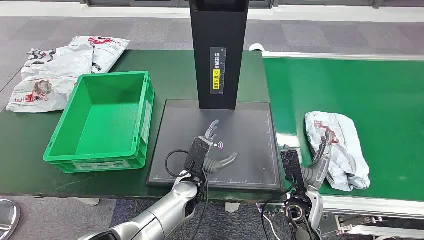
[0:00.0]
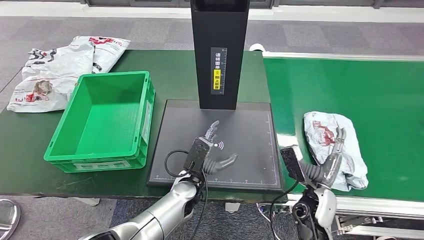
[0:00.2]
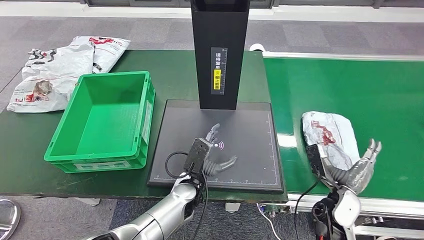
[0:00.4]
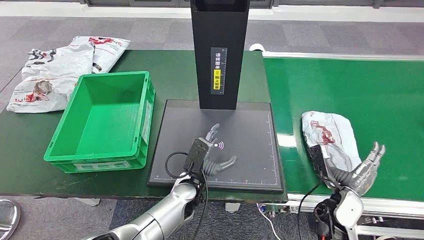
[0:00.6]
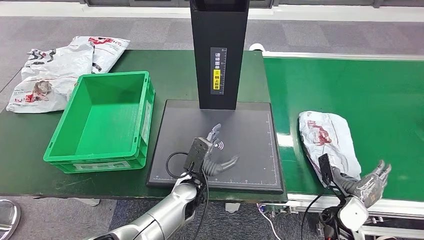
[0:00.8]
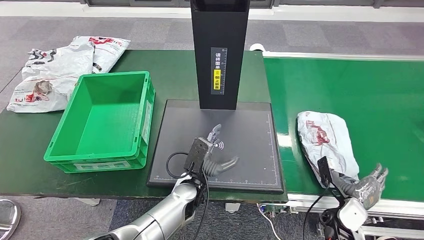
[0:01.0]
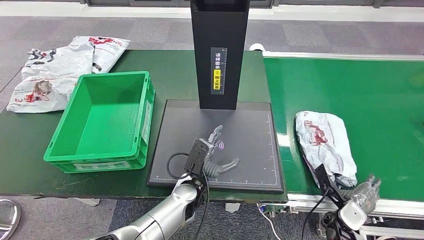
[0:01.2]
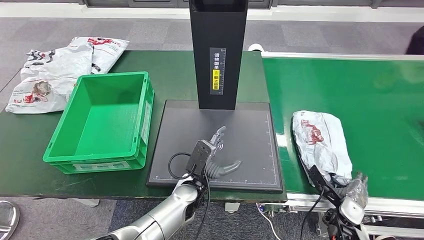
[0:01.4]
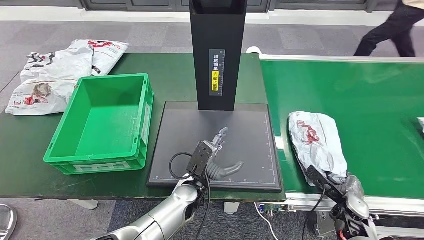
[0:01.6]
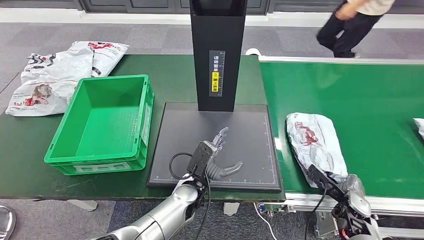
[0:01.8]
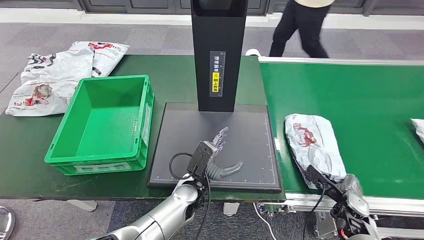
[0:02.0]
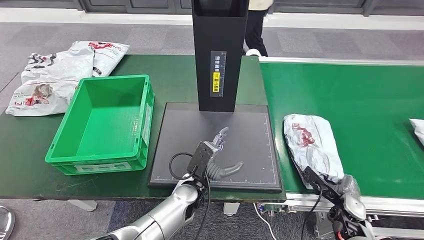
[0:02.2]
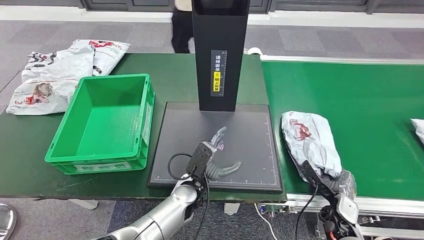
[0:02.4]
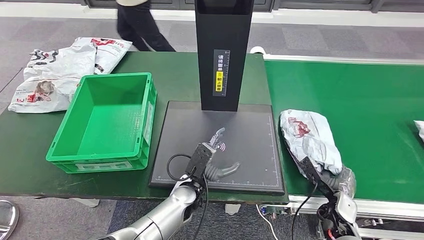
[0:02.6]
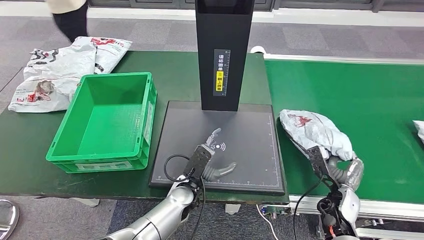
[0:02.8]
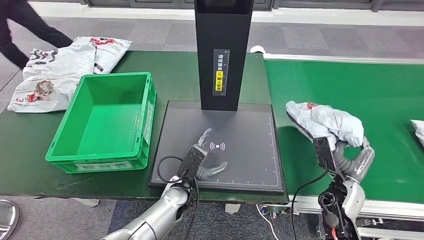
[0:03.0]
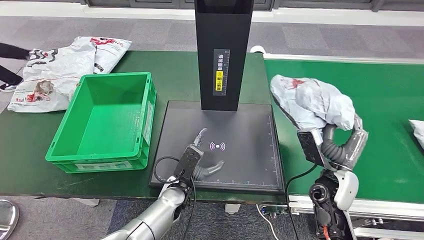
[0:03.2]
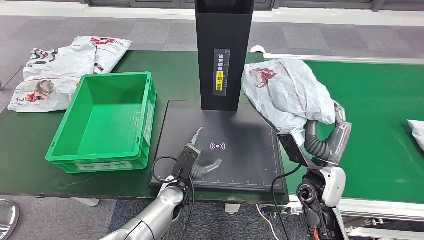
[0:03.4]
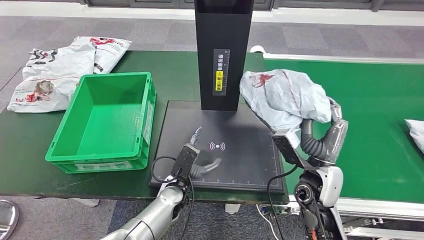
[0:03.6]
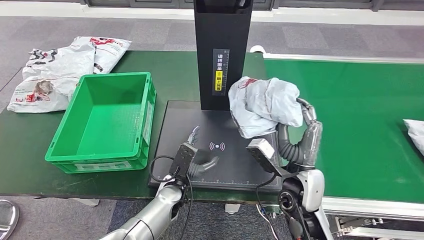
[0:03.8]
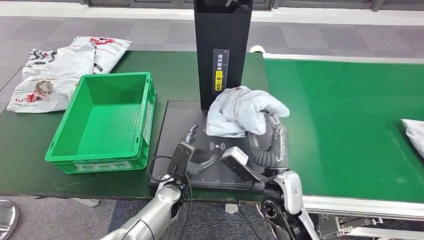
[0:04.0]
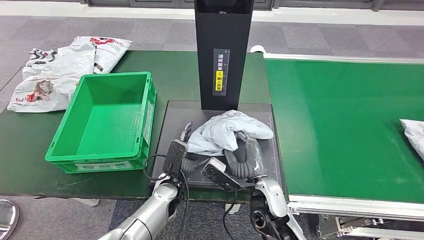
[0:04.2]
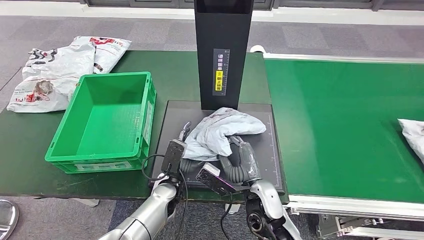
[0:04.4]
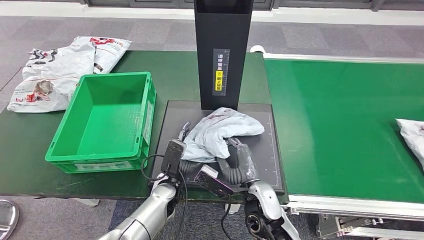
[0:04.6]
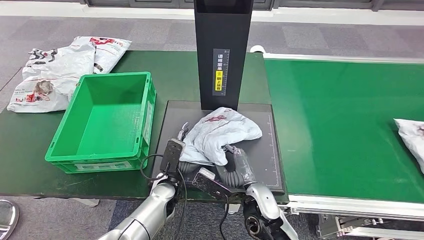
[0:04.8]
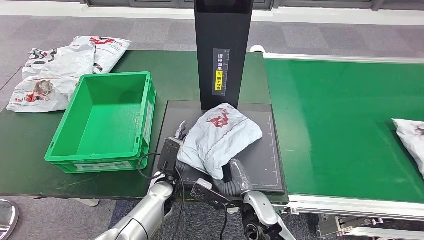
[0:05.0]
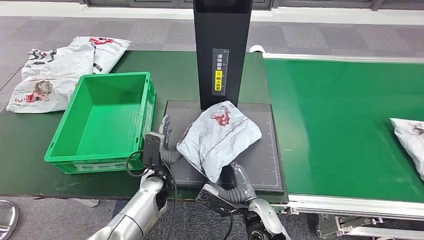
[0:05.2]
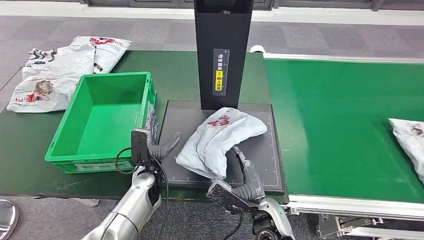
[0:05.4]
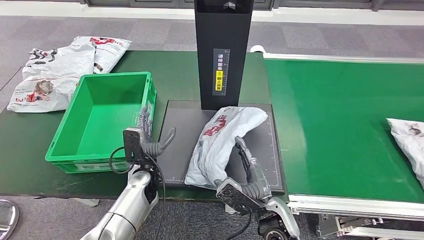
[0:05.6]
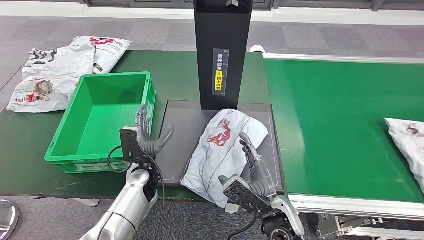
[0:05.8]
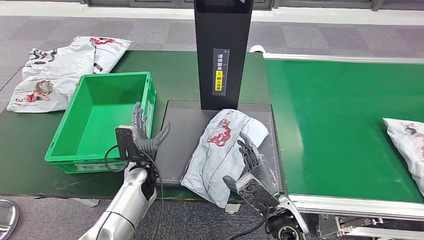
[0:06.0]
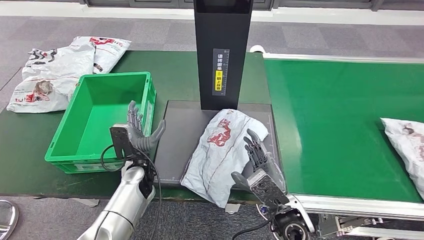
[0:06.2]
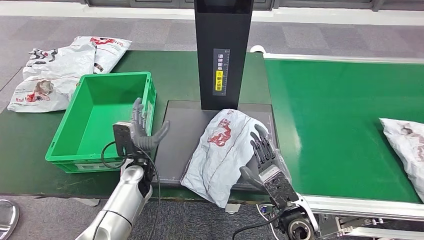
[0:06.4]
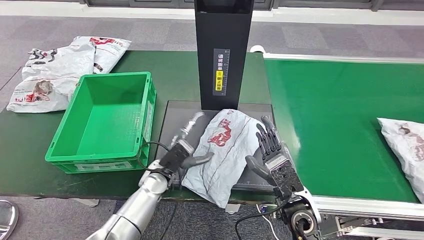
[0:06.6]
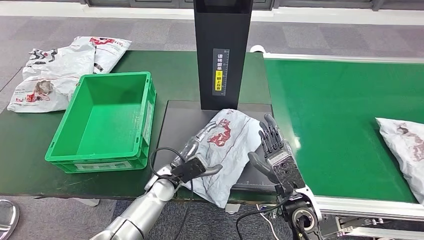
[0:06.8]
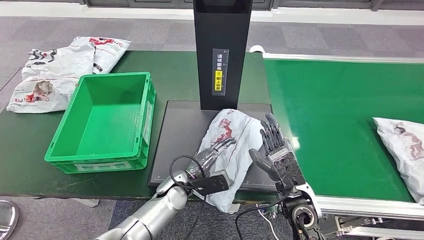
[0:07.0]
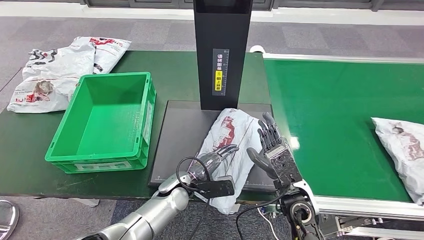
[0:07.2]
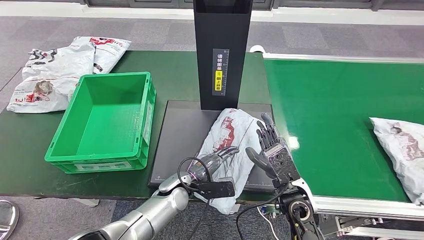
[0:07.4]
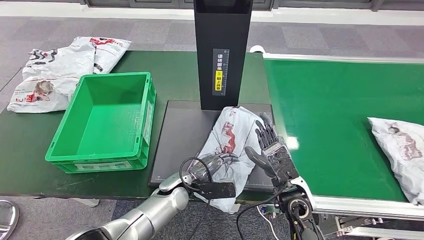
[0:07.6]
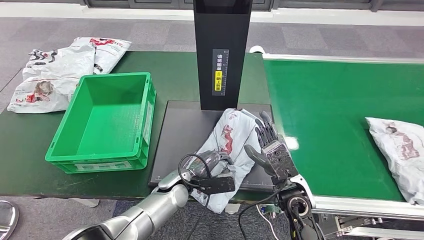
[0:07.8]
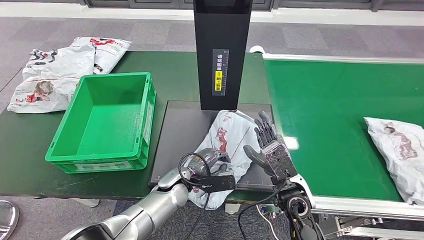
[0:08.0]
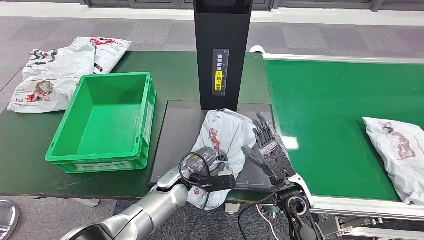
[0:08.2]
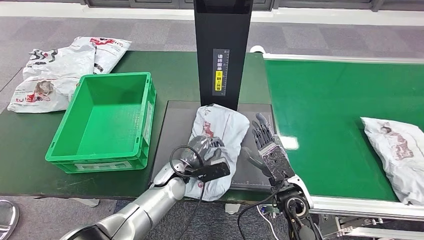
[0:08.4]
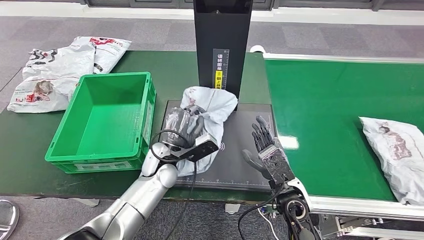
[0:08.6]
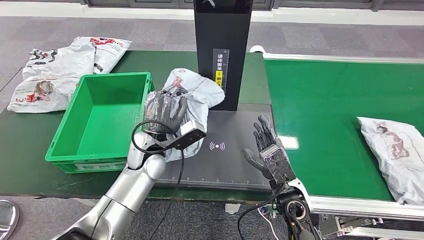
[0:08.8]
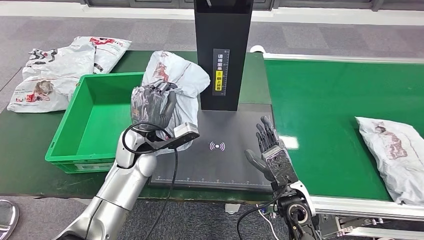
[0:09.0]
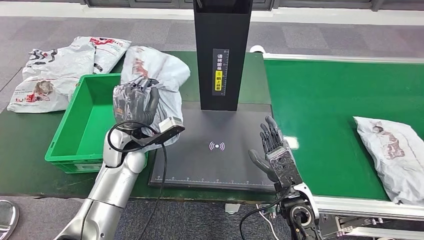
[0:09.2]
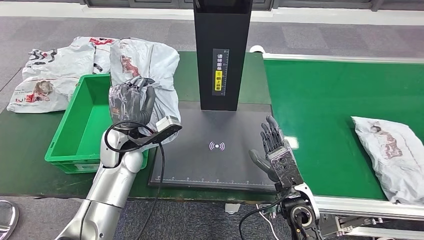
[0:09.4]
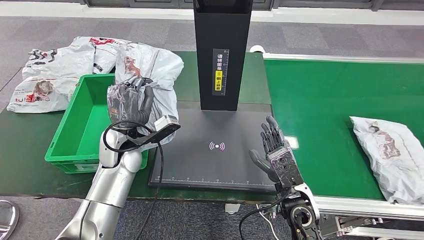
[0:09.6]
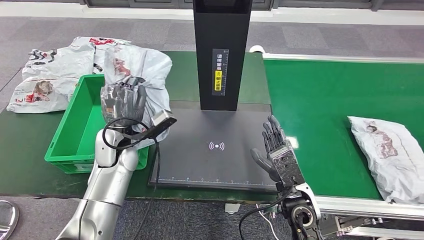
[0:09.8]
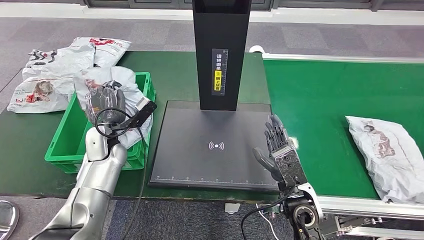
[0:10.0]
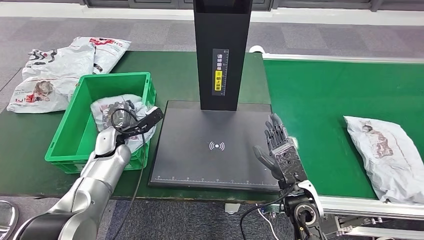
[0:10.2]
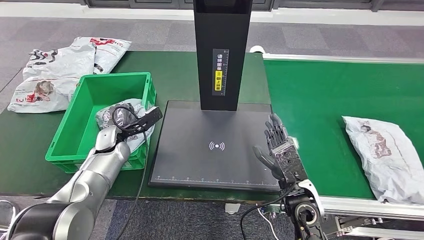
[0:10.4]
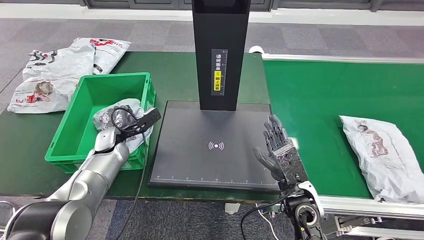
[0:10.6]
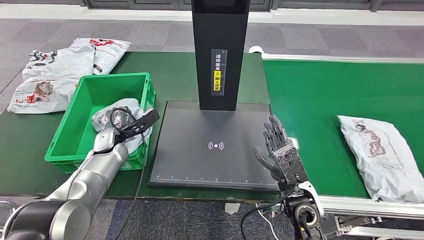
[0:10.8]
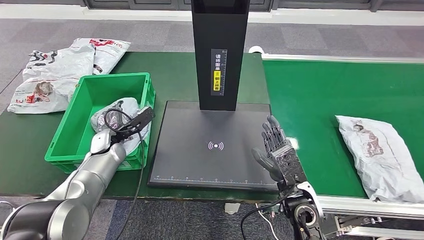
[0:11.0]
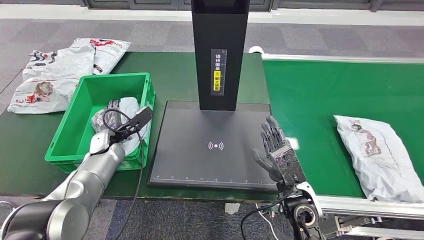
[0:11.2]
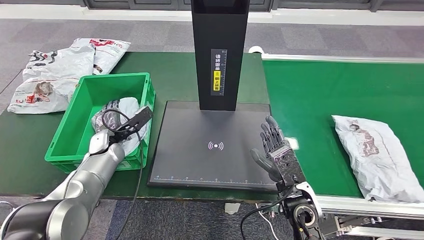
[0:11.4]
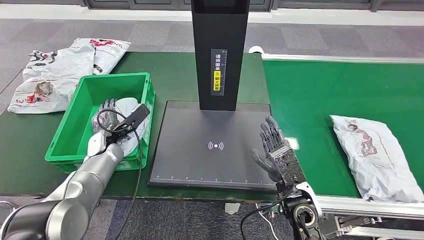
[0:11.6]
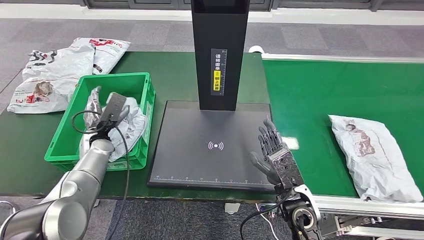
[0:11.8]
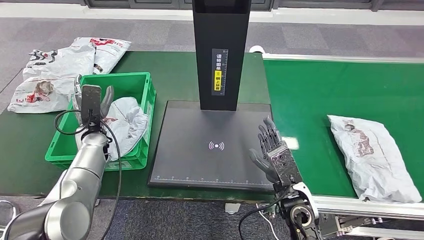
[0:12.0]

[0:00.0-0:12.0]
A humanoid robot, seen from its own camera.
Step, 0:00.0 to 0:02.8: Take the parcel off the conveyor belt.
Step, 0:03.0 to 0:06.0: Place the parcel onto the inbound machine.
Step, 0:06.2 to 0:08.8: Pick up the parcel from the inbound machine.
0:04.4 to 0:06.0: The left hand is displaced to the left by about 5 cm. Meanwhile the right hand ends up about 5 cm from where it was.
0:06.0 to 0:07.6: The right hand shifts by some 5 cm. Meanwhile the left hand goes approximately 10 cm to the right.

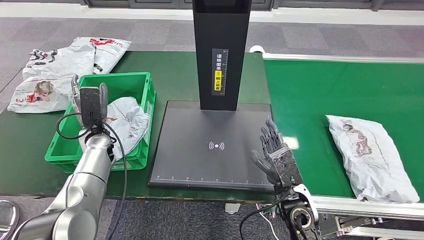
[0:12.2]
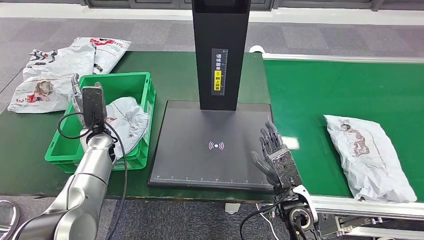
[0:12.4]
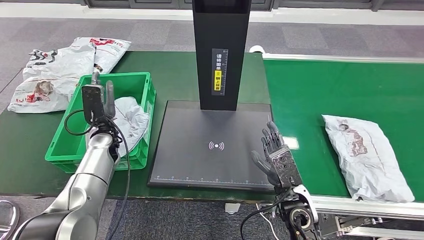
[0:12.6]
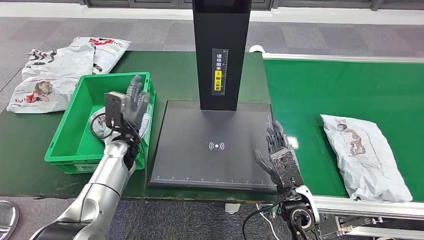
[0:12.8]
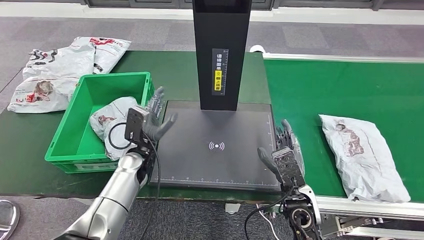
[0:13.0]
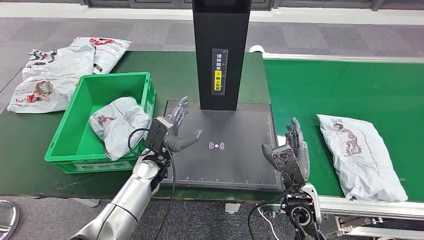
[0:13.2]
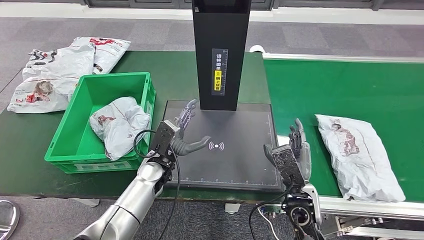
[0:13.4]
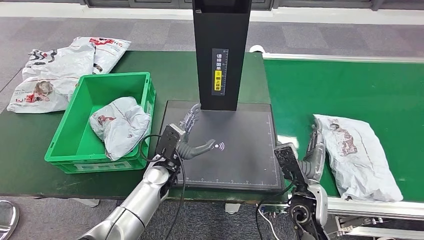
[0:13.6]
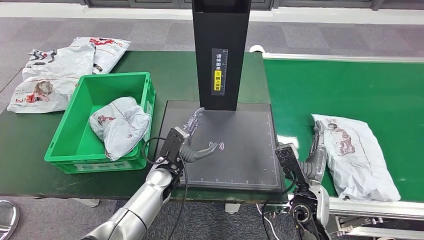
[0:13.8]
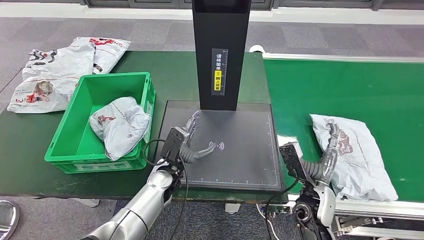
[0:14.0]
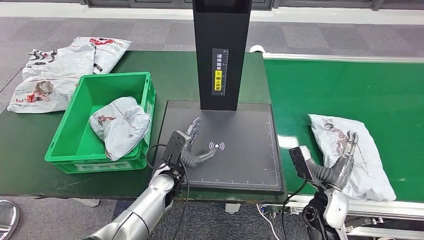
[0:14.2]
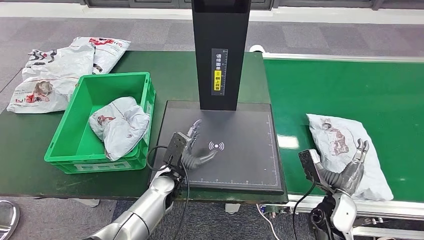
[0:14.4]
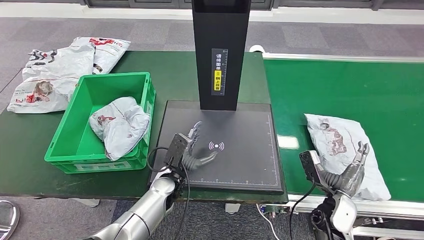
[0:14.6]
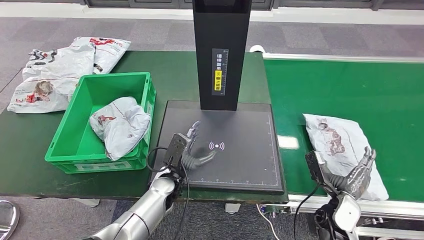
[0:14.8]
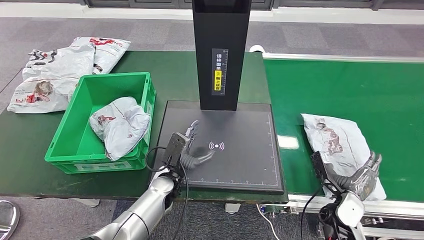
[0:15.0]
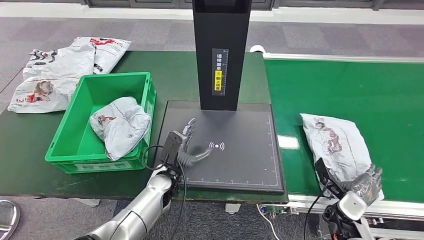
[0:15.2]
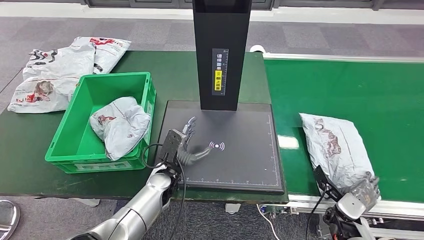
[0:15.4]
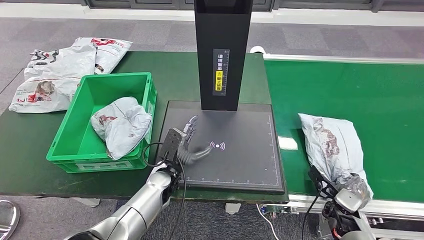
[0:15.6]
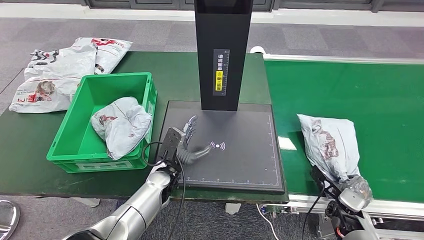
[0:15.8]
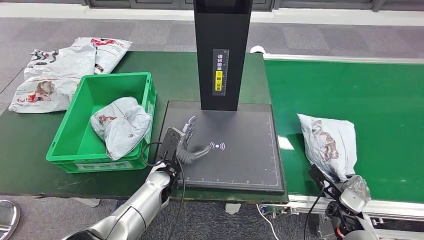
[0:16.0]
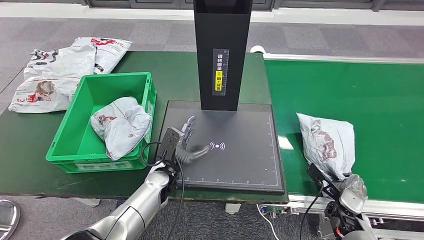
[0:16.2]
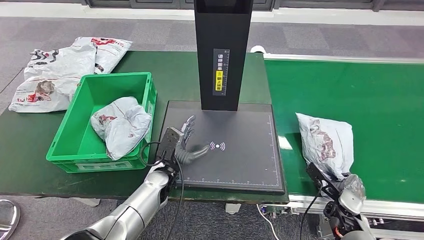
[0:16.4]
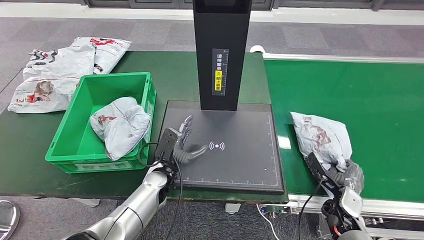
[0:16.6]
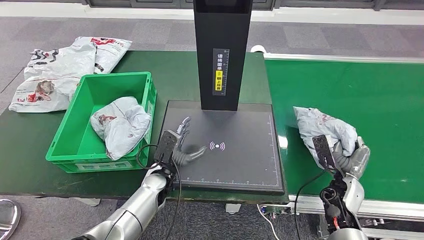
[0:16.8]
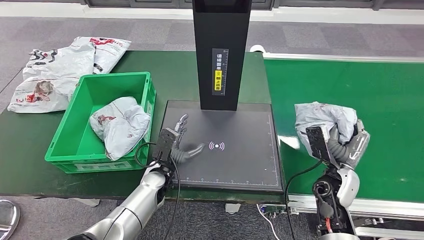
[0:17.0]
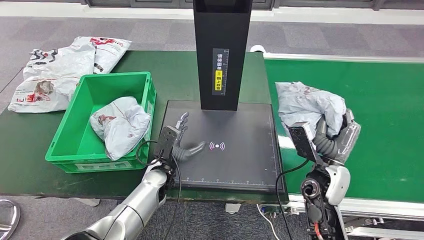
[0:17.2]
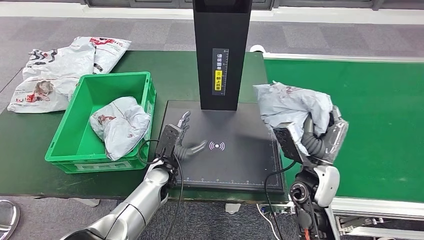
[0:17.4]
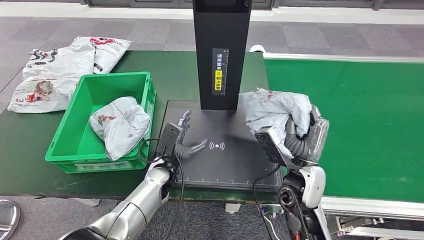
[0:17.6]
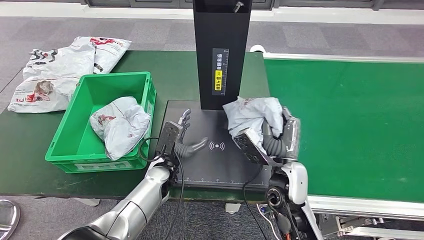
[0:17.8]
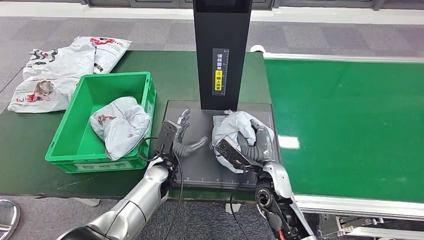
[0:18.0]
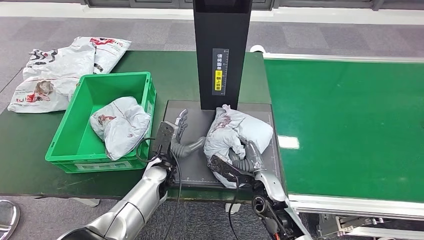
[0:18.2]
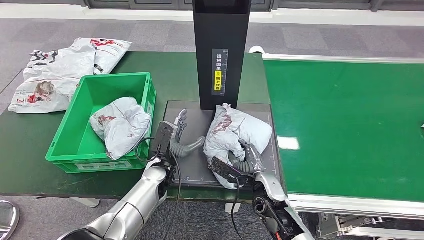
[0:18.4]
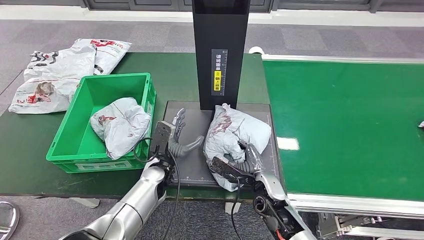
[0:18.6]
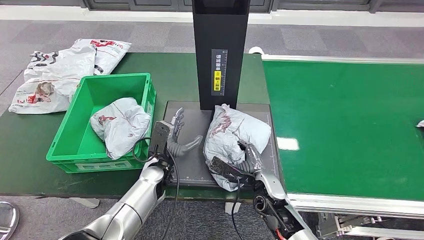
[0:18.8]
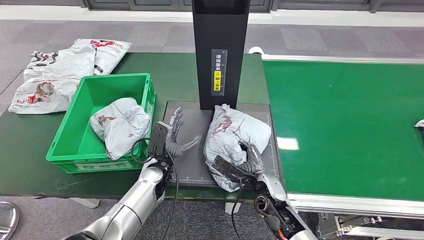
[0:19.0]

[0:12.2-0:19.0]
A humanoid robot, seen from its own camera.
Step, 0:13.6 to 0:17.2: Pick up the parcel from the conveyor belt.
0:12.2 to 0:13.6: The left hand goes some 20 cm to the right.
0:13.6 to 0:15.0: The right hand moves to the right and downward, some 15 cm.
0:16.2 to 0:17.6: The right hand heads to the left and upward, covering roughly 20 cm.
